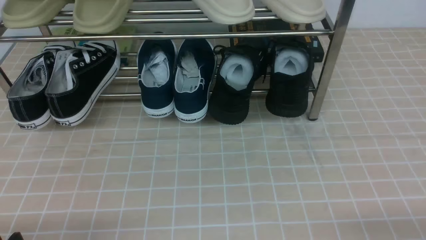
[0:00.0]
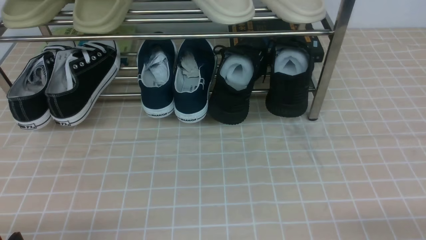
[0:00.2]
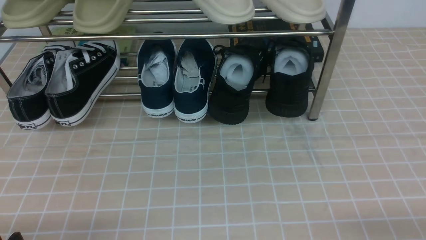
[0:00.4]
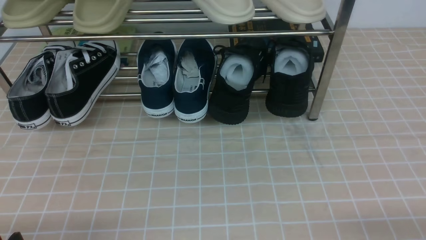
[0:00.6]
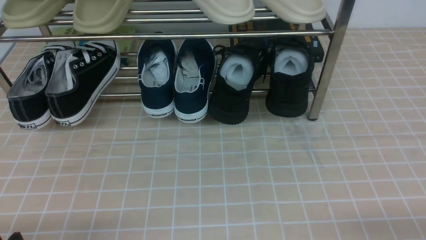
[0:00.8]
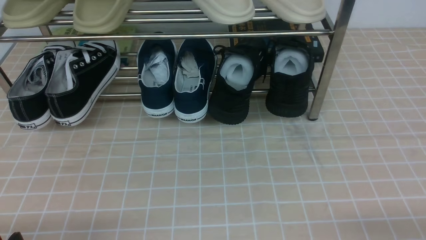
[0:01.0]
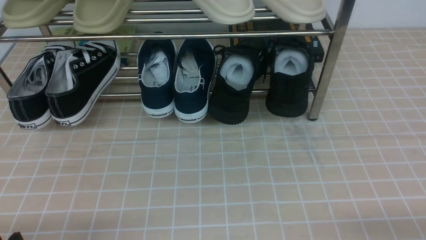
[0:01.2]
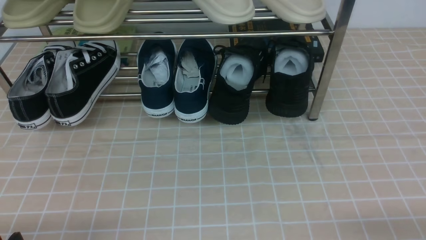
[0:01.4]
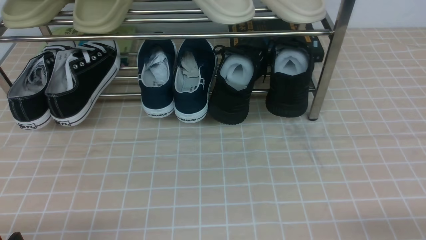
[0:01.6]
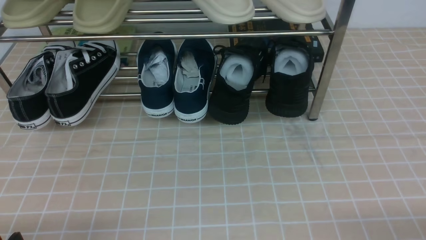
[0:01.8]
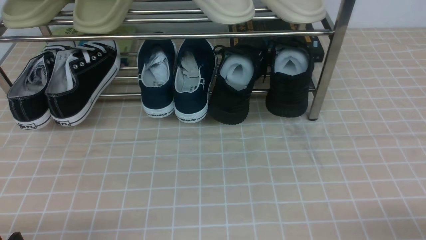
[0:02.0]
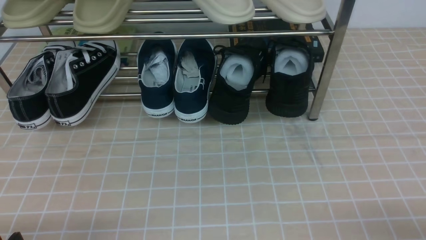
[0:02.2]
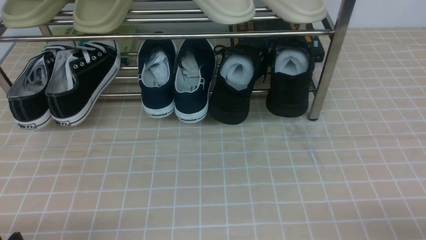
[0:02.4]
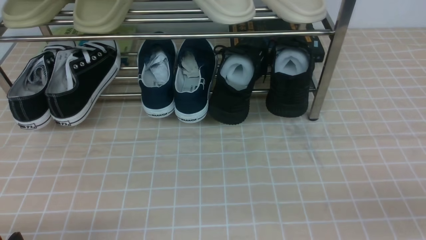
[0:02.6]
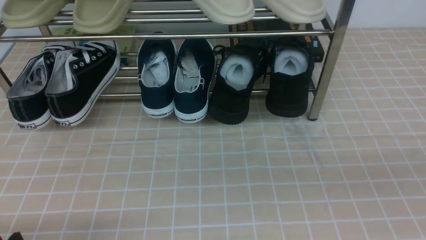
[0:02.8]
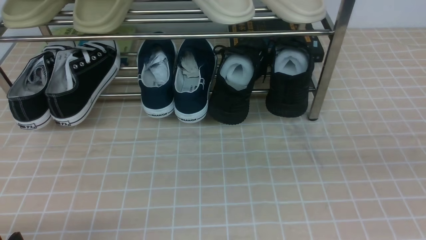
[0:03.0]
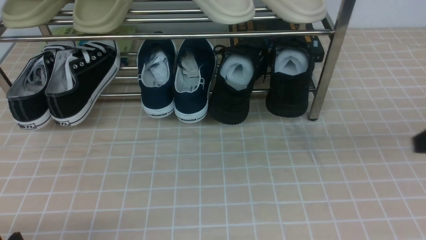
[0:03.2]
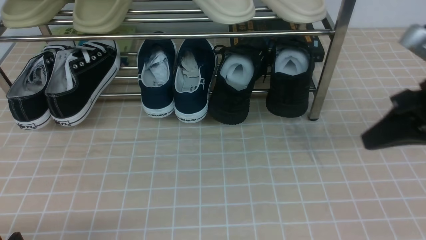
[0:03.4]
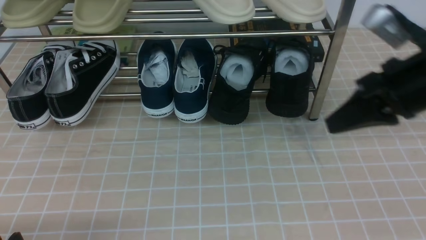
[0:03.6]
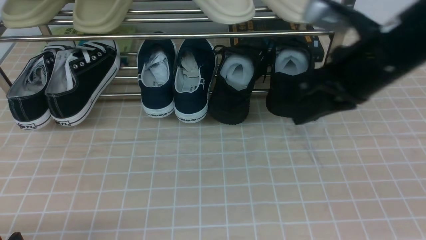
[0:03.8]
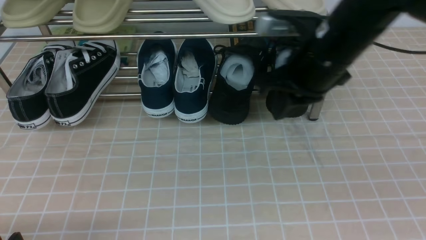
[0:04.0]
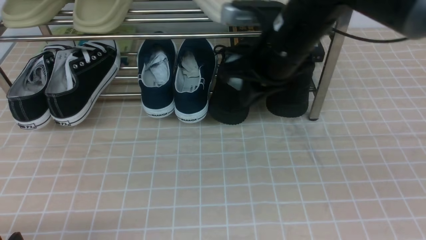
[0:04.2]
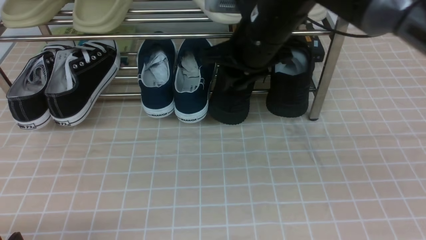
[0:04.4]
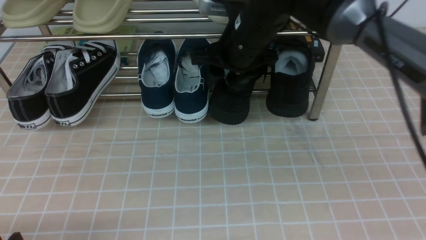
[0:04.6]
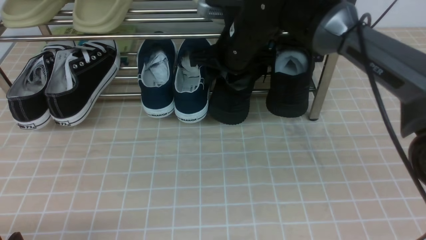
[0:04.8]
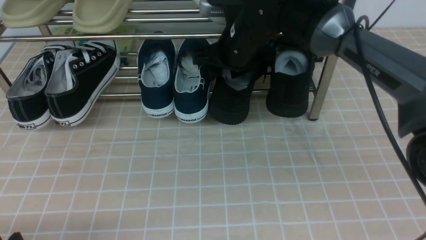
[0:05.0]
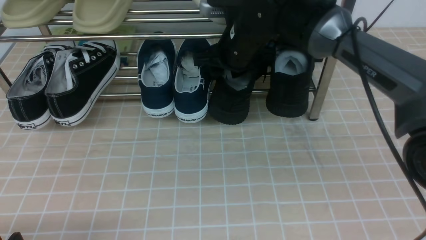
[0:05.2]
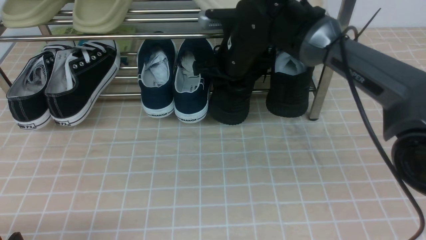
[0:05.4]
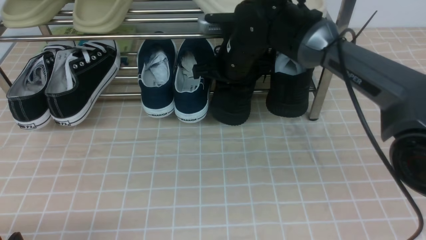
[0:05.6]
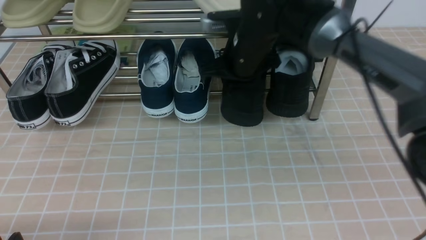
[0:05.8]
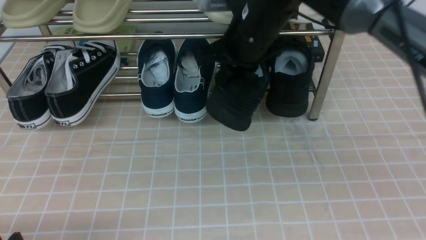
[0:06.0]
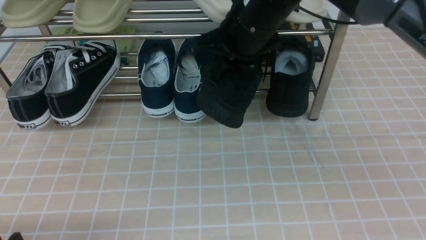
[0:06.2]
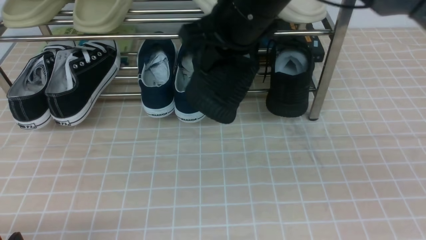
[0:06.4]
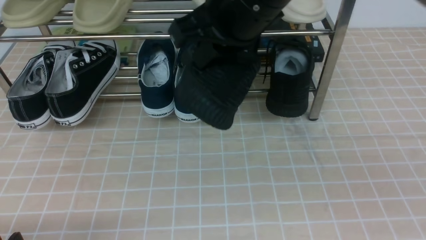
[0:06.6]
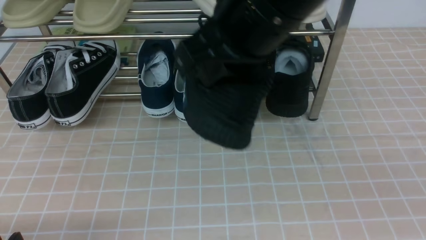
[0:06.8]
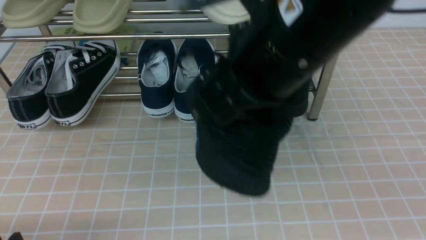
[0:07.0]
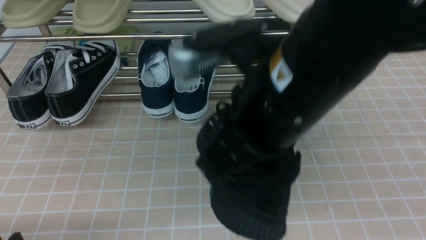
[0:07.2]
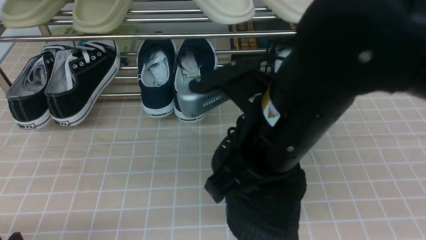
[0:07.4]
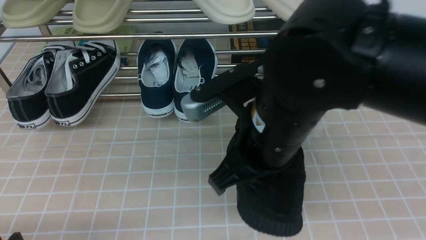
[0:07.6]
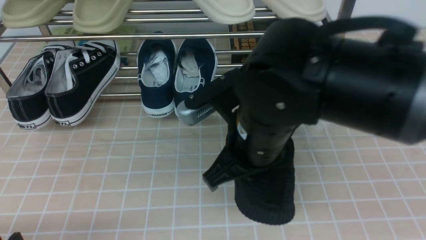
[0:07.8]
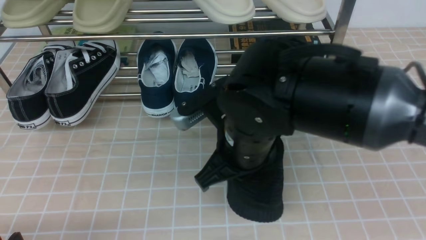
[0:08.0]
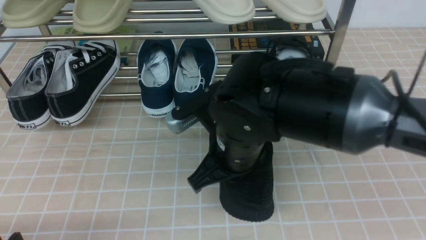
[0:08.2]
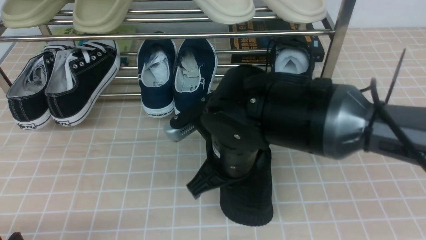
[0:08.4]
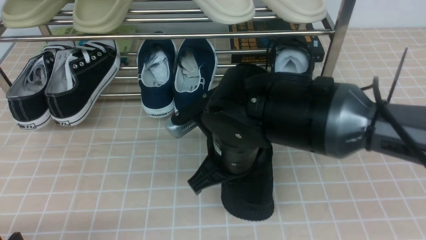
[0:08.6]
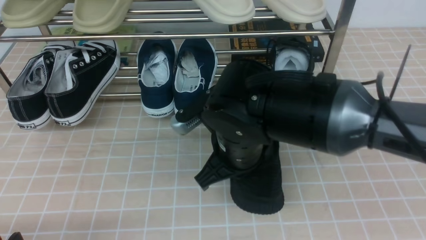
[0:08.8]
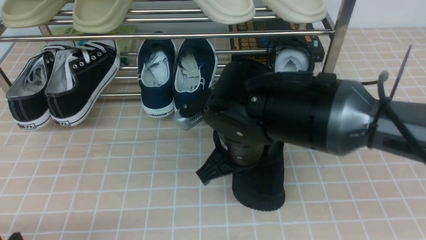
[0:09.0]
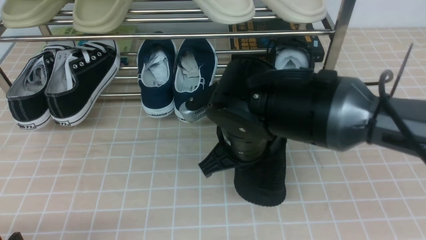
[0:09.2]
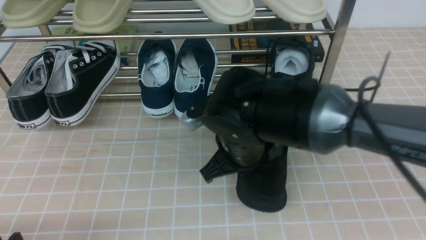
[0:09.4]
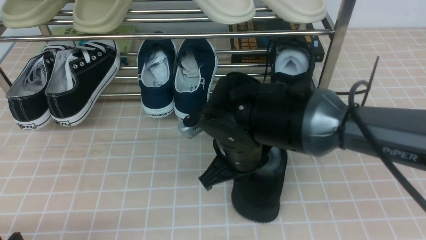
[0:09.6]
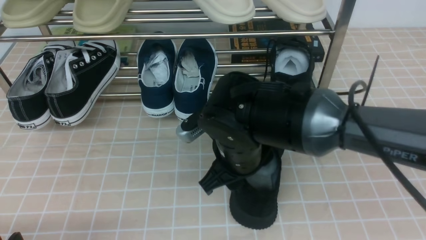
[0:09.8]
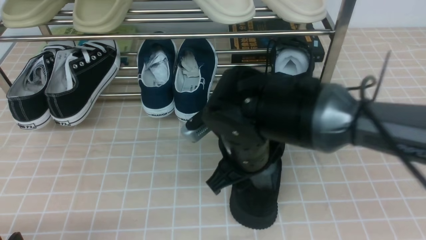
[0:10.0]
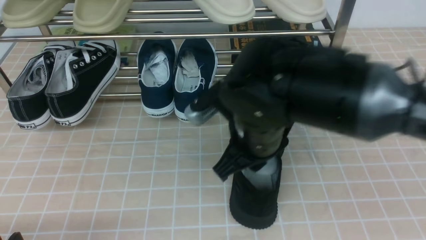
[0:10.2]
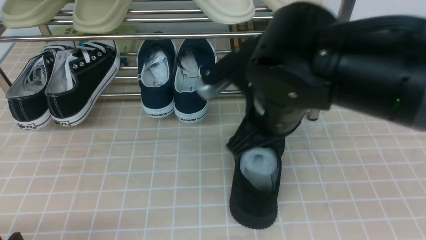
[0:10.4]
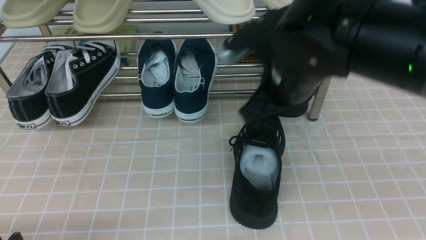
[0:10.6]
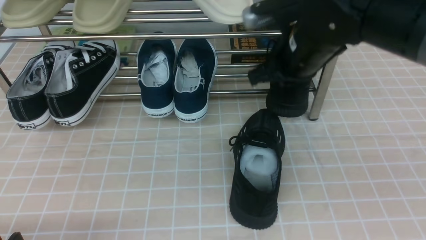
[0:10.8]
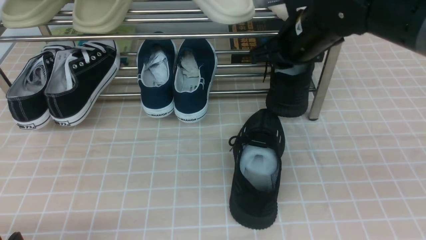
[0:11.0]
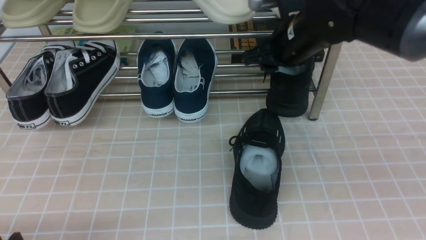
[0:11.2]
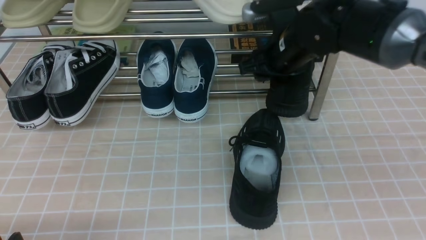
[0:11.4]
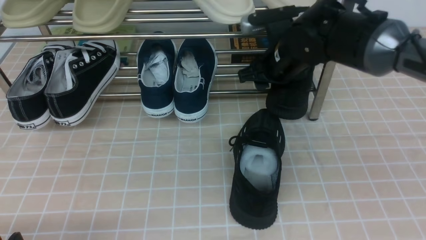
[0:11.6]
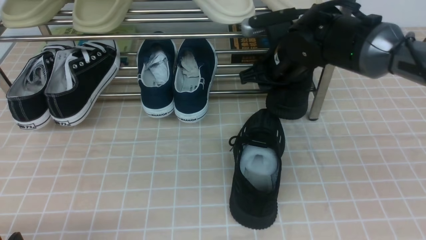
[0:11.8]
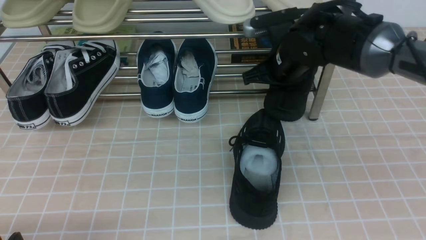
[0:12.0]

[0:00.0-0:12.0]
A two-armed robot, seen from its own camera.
Step, 0:00.0 to 0:05.6: use the right arm to clamp a shoe on the right side of the shoe rack.
Step, 0:05.8 to 0:10.0: use the right arm to take out the clamped shoe from the shoe rack and put it down.
0:00.0 to 0:01.6: Both grippers stay put.
0:01.6 to 0:03.0: The right gripper shifts some 20 cm upward and forward, and closes up.
0:03.0 to 0:04.4: The right gripper is displaced to the left and forward by approximately 35 cm, and opens.
0:04.4 to 0:06.0: The right gripper closes up.
0:06.0 to 0:07.6: The right gripper heads backward, covering some 15 cm.
0:07.6 to 0:09.0: The right gripper moves downward, about 5 cm.
0:09.0 to 0:10.4: The right gripper goes about 5 cm upward, and opens, then closes again.
0:10.4 to 0:12.0: The right gripper goes roughly 15 cm forward, and opens and closes again.

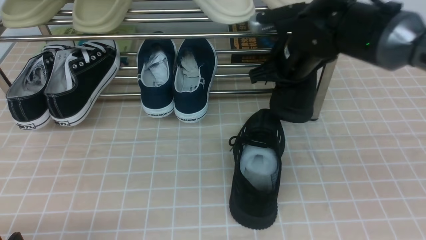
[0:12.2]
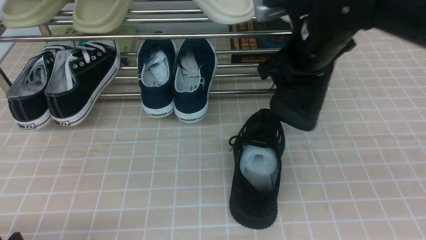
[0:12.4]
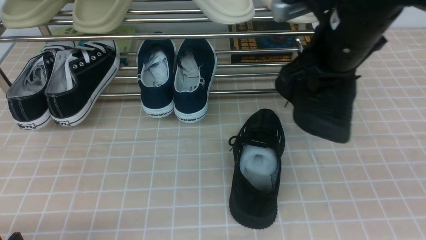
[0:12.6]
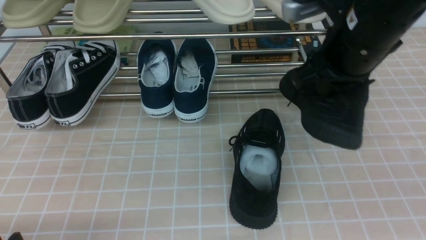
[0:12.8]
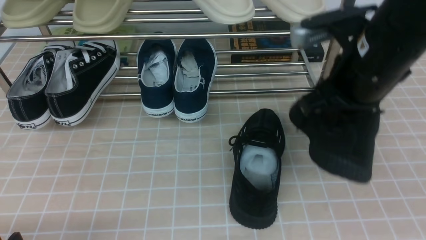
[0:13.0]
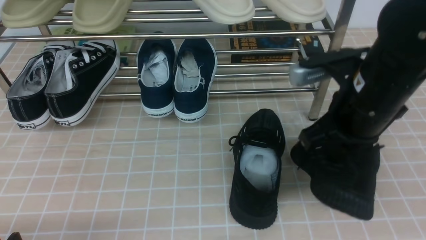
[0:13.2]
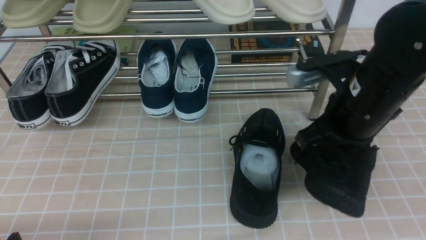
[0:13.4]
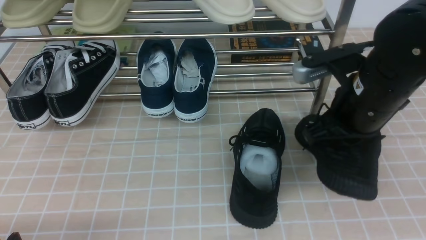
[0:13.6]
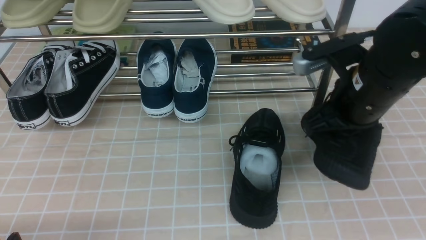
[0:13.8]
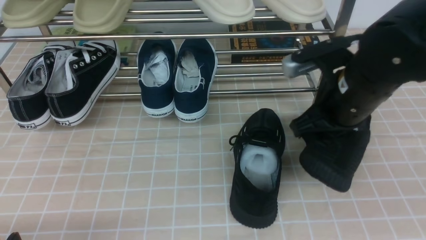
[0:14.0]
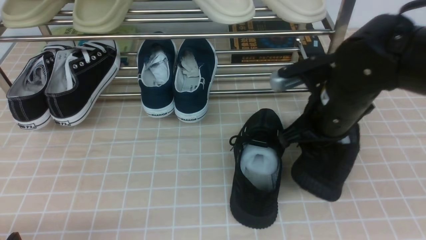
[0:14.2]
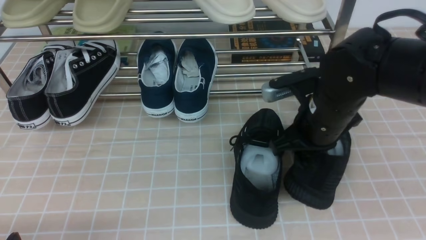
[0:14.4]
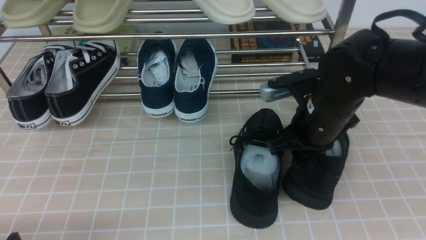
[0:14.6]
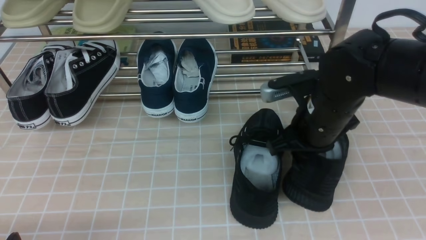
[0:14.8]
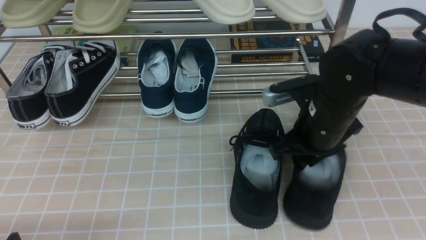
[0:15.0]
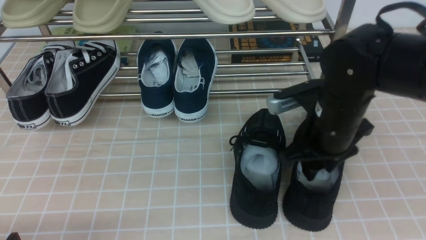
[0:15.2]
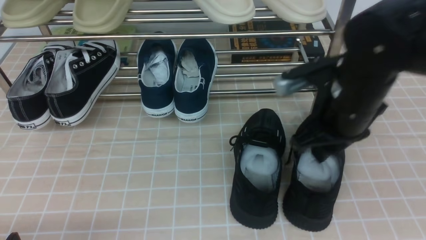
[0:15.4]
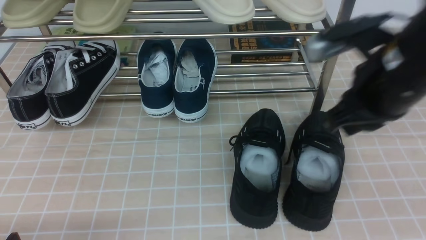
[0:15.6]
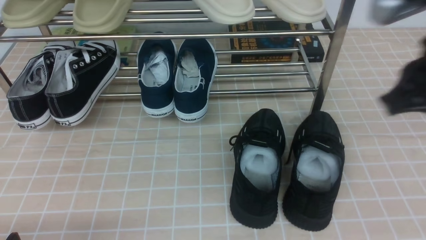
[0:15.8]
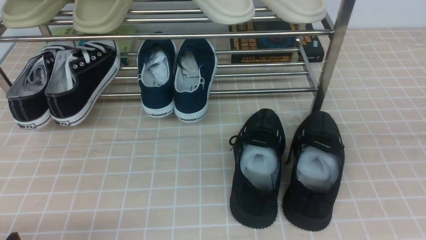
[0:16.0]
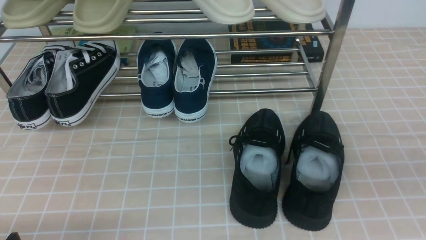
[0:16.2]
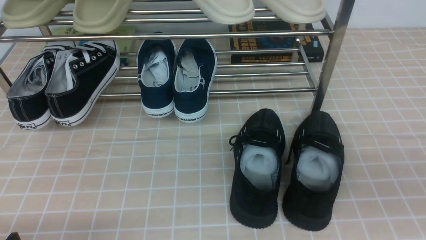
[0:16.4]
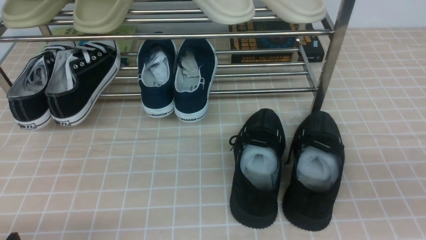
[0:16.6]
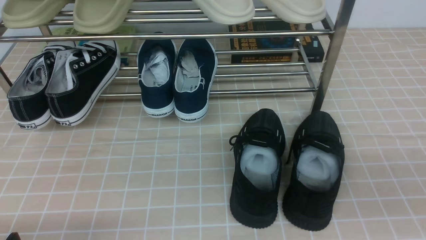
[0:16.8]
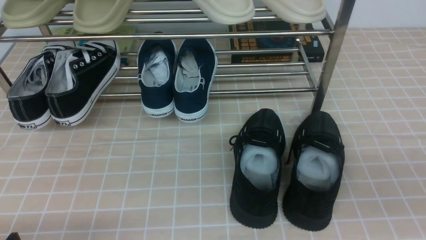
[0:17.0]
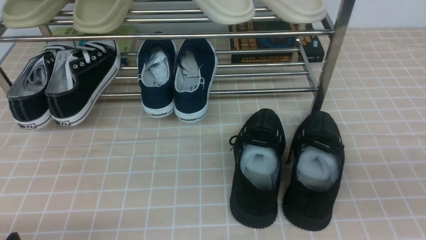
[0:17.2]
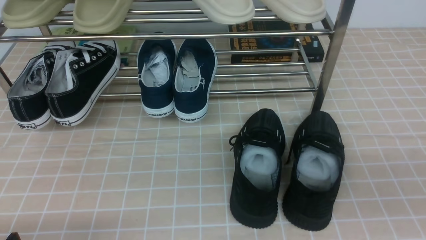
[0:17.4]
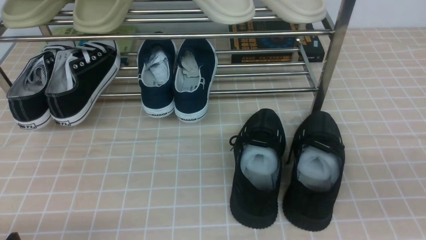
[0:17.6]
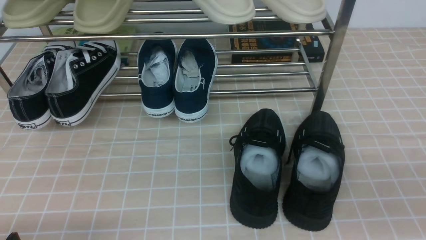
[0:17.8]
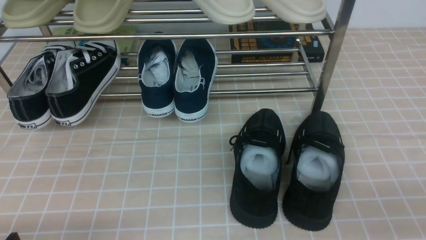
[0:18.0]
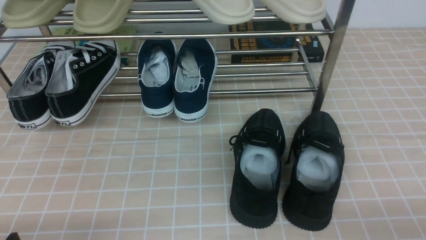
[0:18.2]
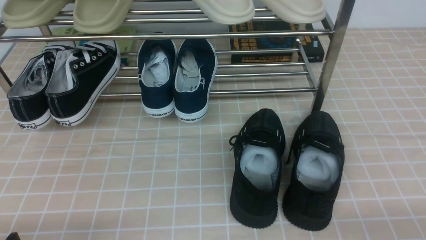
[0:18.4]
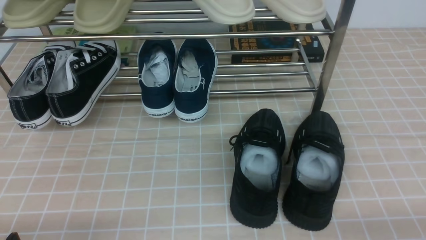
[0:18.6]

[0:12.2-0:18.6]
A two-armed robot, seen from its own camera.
Step, 0:12.2 to 0:15.2: use the right arm to take out the clamped shoe from the shoe rack and put it down.
0:12.2 to 0:13.8: The right gripper heads backward, covering some 10 cm.
0:13.8 to 0:15.4: The right gripper opens its fingers.
0:15.4 to 0:17.0: The right gripper shifts some 25 cm backward and to the right, and closes.
0:17.0 to 0:18.6: The right gripper shifts about 15 cm downward.
